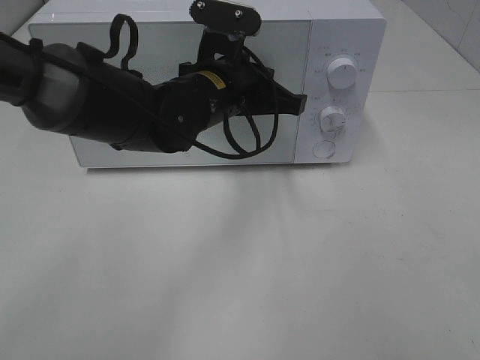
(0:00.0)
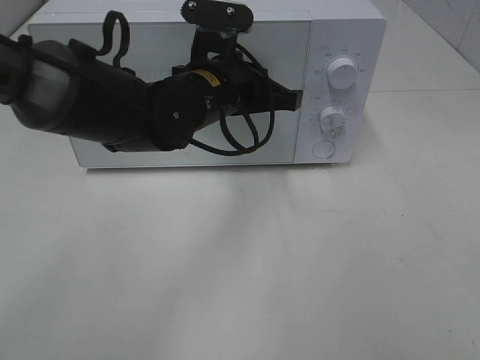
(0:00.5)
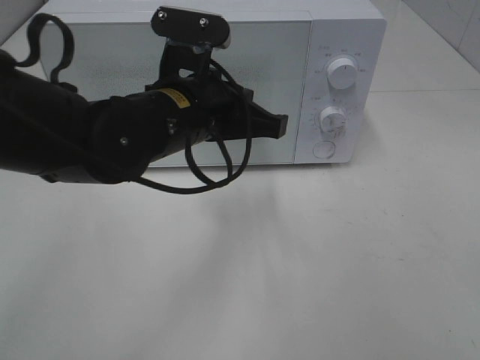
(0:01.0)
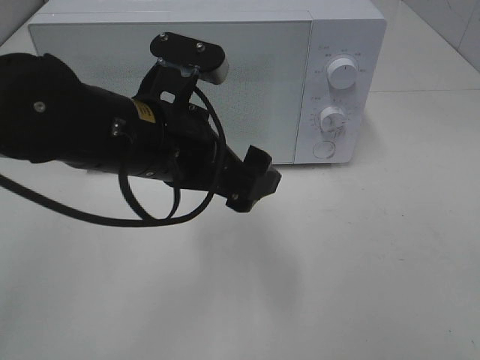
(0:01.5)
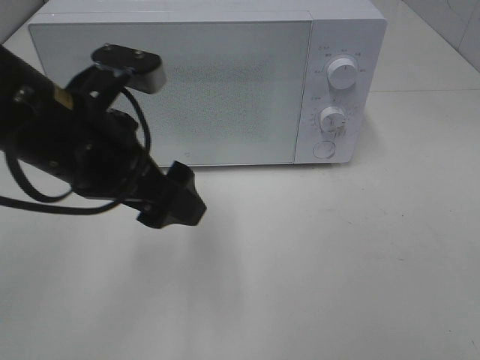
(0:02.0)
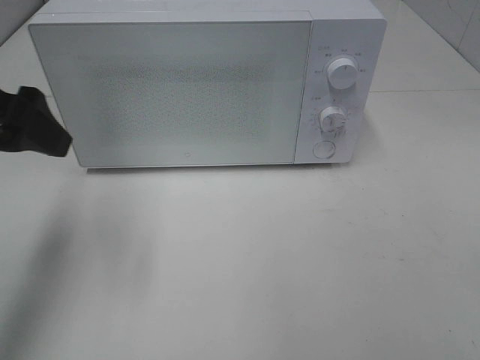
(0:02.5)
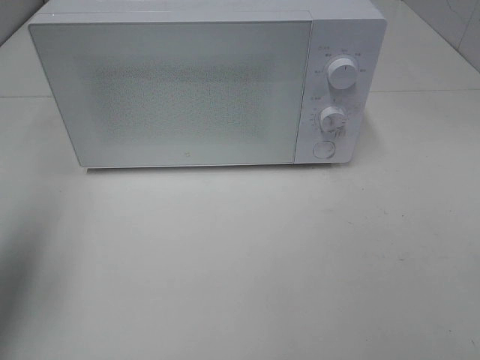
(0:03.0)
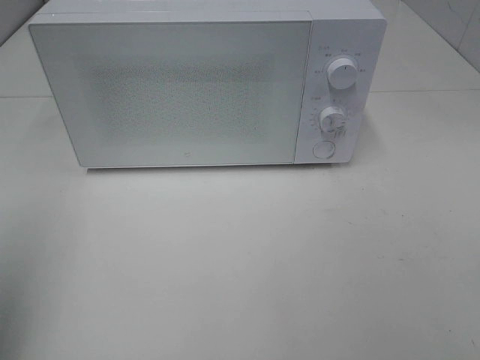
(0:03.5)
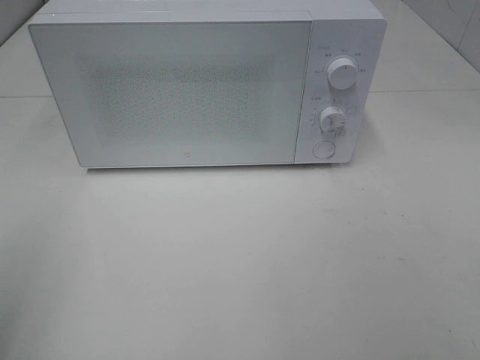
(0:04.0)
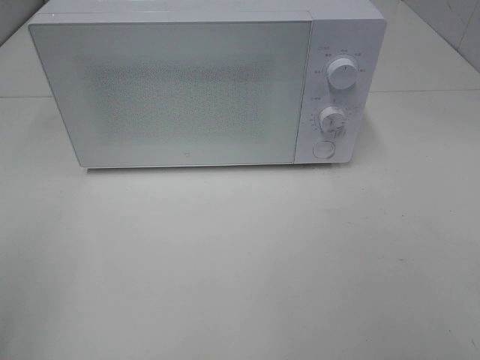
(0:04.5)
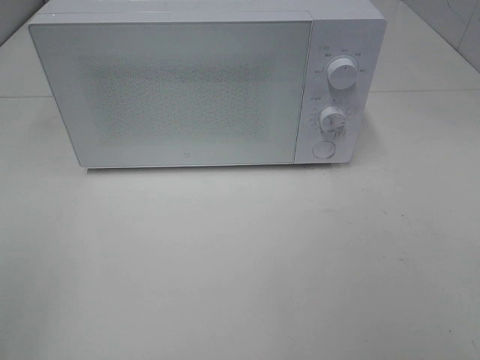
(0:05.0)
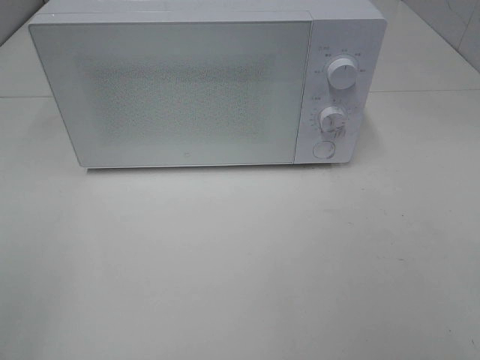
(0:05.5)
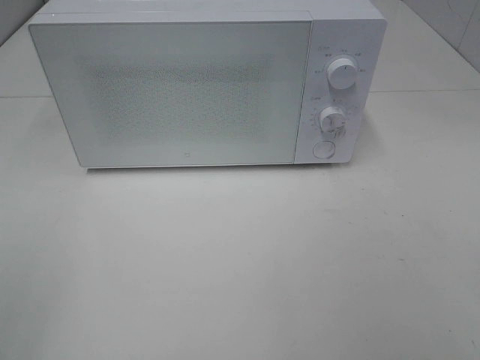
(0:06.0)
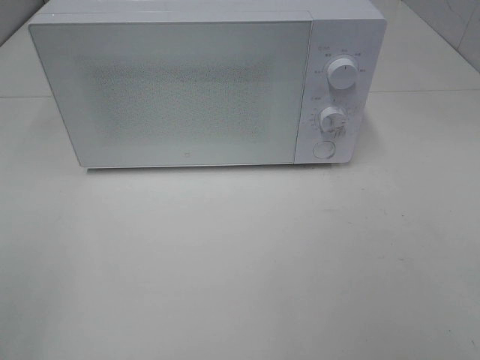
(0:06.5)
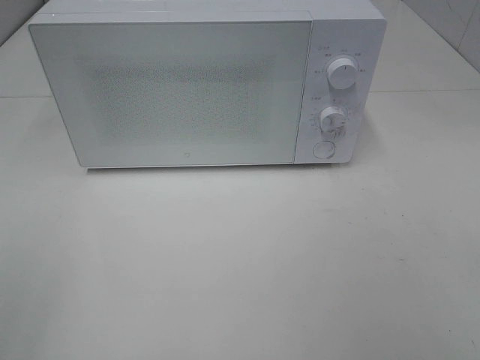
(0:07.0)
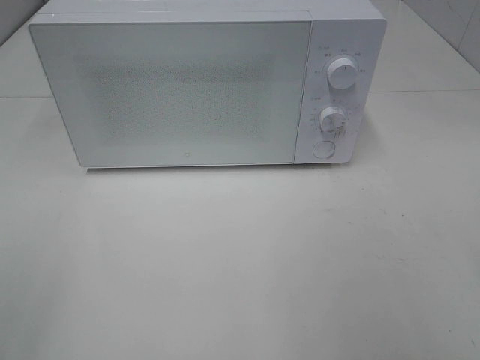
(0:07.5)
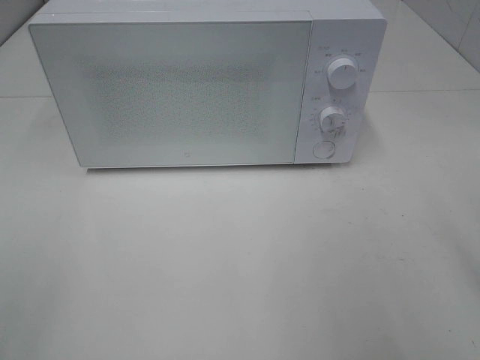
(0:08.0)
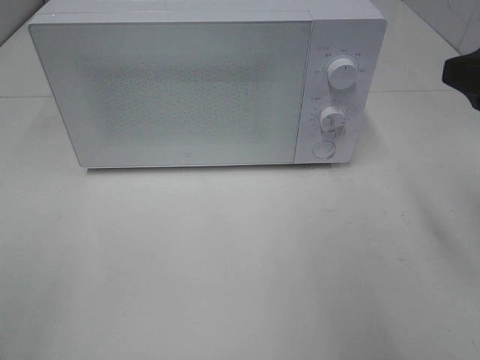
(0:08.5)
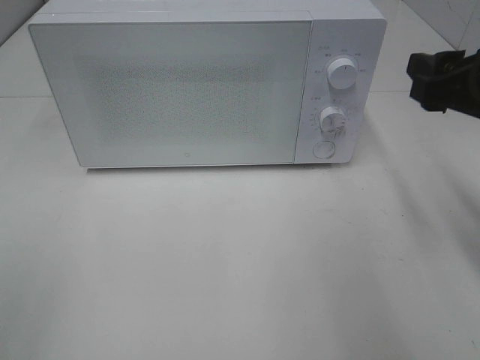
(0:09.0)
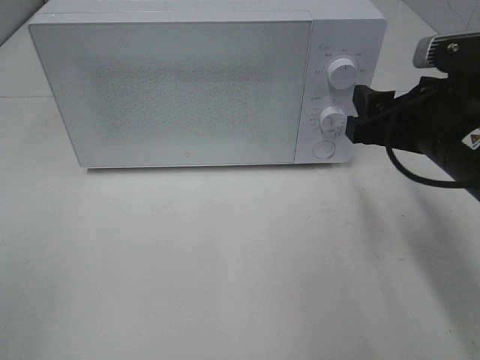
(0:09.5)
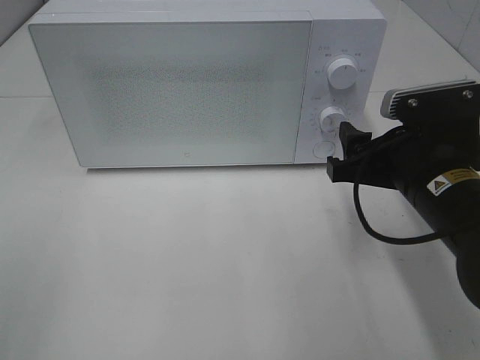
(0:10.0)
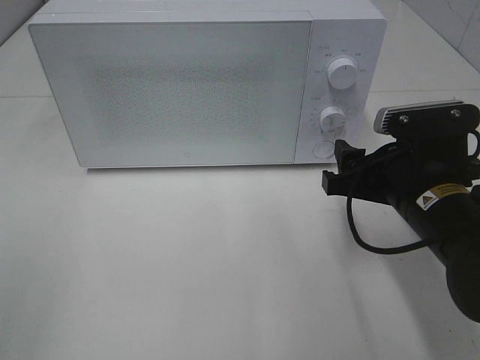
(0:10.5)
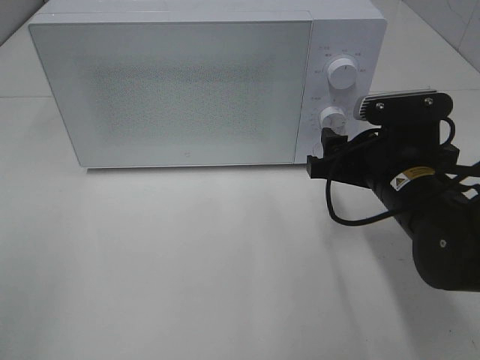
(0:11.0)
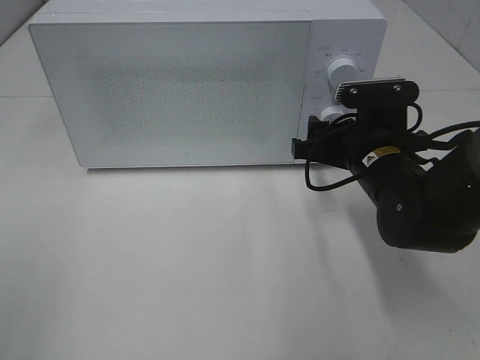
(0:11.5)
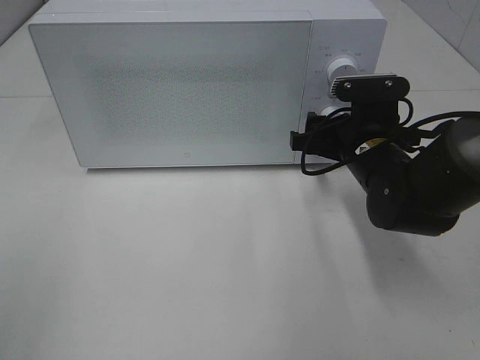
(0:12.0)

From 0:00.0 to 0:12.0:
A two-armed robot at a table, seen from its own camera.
Task of the whole recording: Heat Sandwich.
From 0:00.0 to 0:02.0: The left gripper moves backward, to the left and upward, roughly 15 cm, and opens its fingers.
From 0:02.0 to 0:04.0: The left gripper goes approximately 25 cm to the left and backward.
From 0:08.0 to 0:10.0: The right gripper goes approximately 20 cm downward, forward and to the left.
From 0:10.0 to 0:12.0: The right gripper travels forward by some 10 cm.

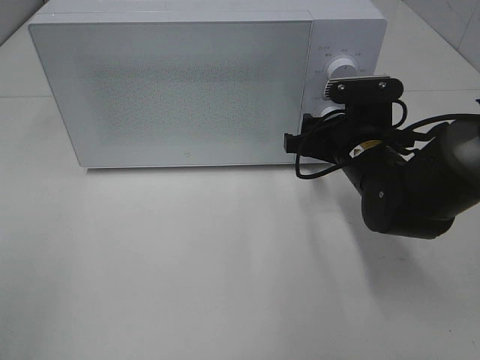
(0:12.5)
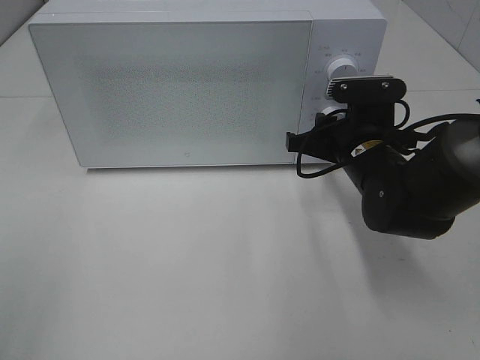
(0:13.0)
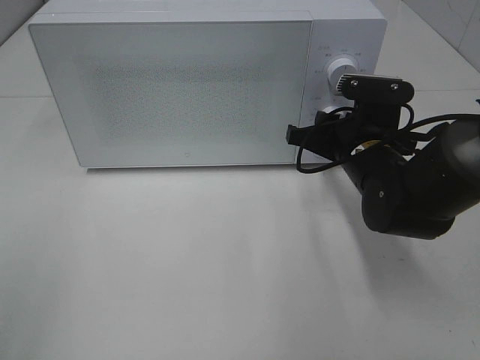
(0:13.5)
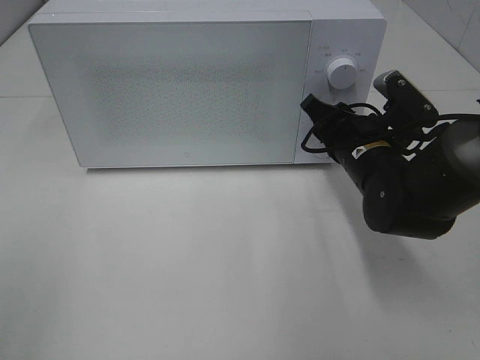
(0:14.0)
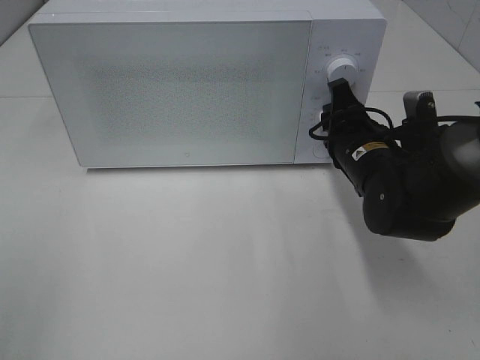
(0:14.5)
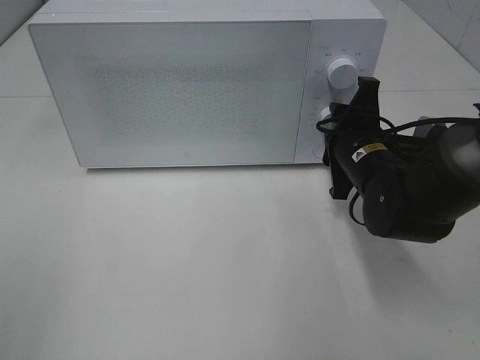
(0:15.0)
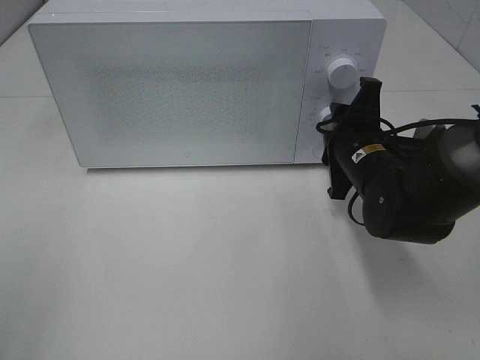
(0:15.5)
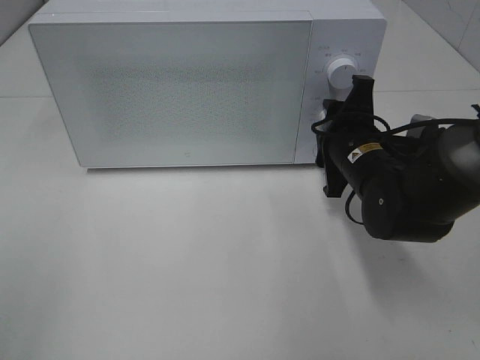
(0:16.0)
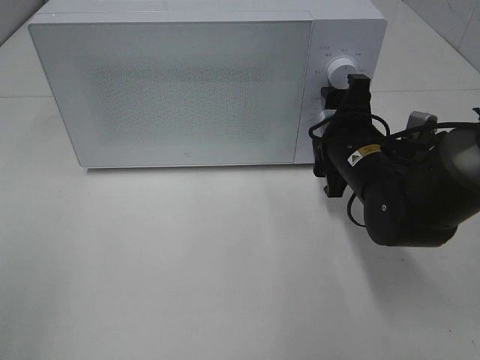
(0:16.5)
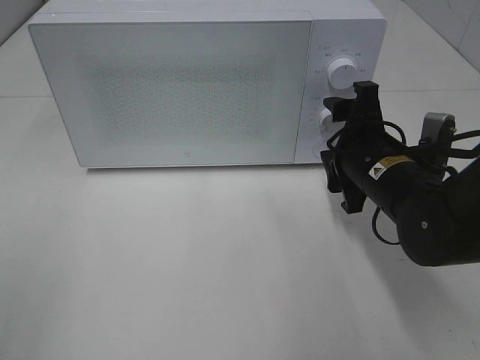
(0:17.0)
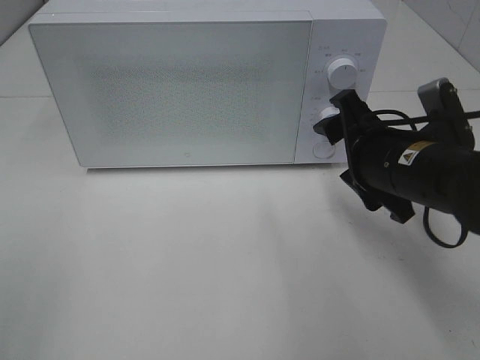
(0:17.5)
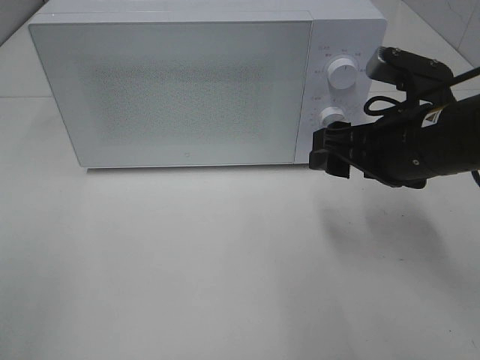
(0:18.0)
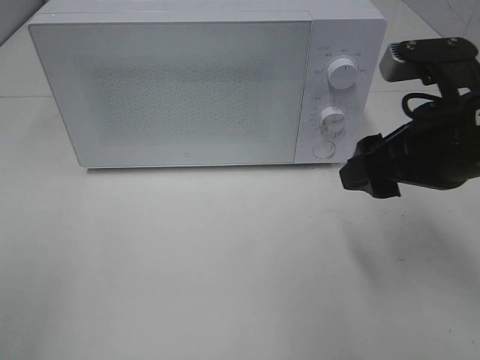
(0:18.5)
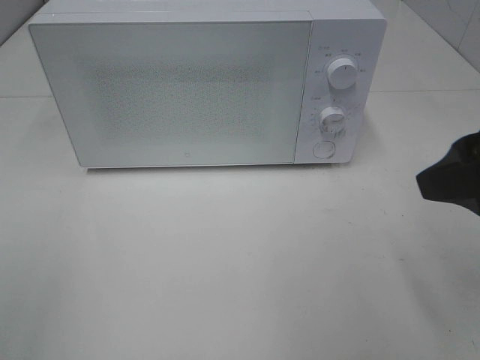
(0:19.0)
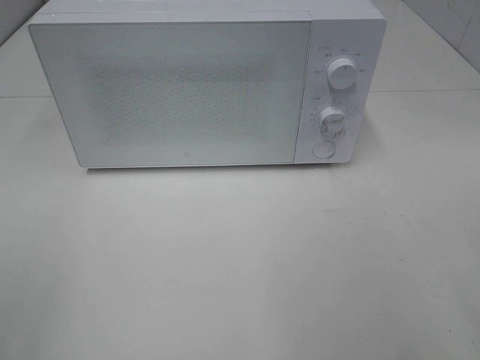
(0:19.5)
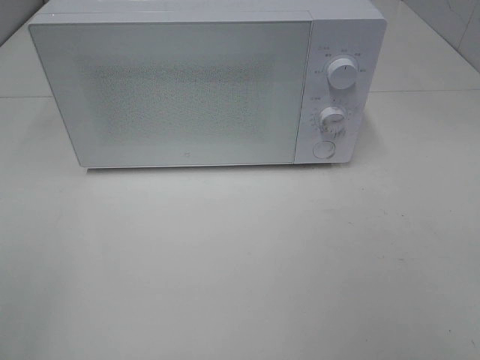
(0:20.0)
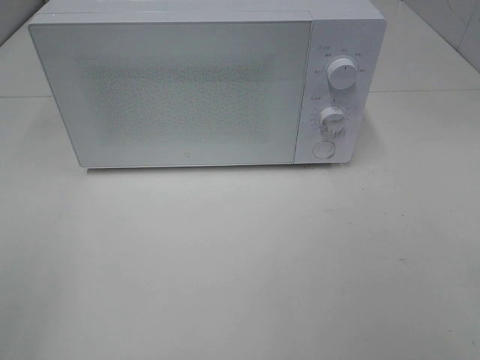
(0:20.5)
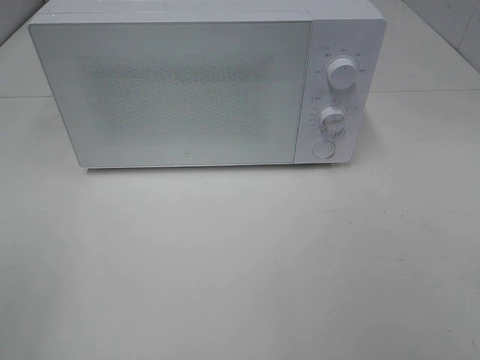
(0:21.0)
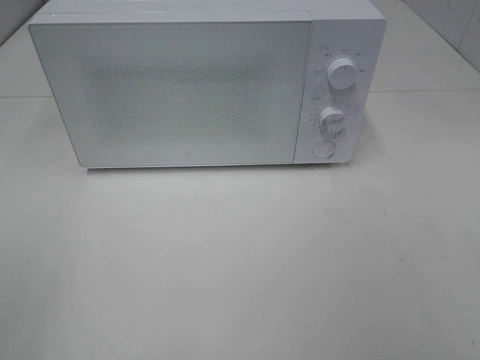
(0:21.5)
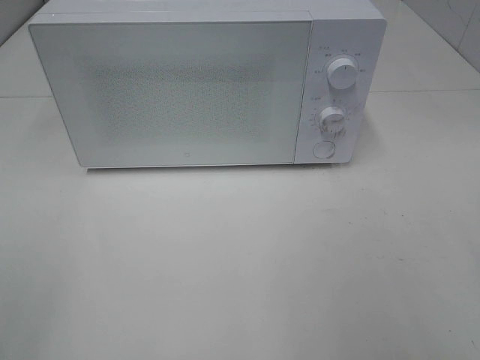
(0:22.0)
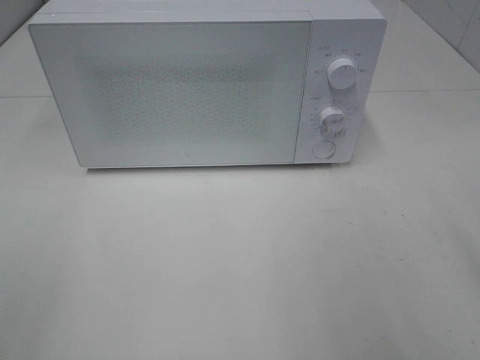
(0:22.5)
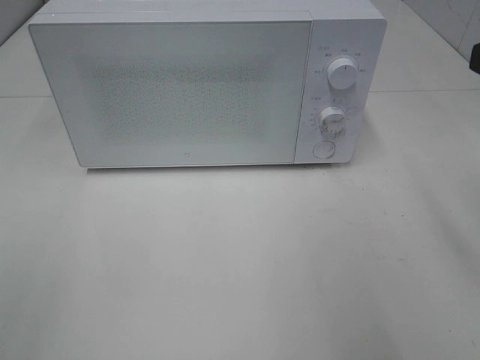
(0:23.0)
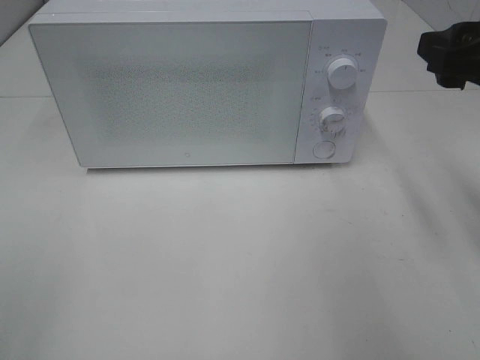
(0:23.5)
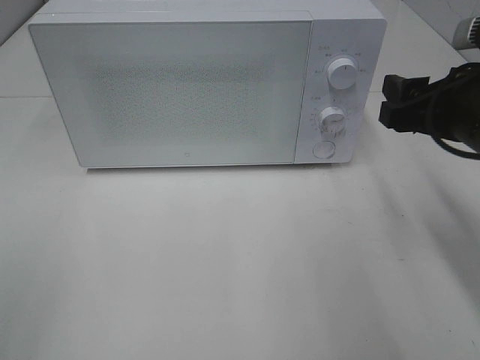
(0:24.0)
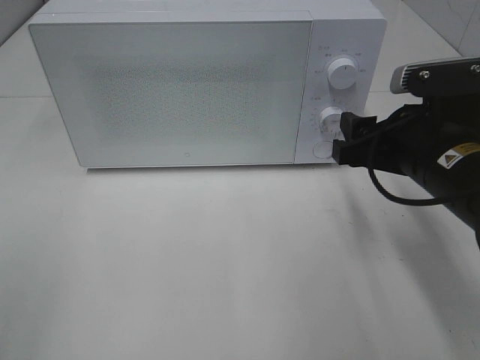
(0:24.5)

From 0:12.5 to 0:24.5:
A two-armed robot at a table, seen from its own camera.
Task of the whole recording: Heat Sandwich.
Step, from 0:12.5 to 0:16.5: Right hand: twist timer button.
From 0:14.5 to 0:16.5: The right gripper opens its fingers.
From 0:16.5 to 0:18.5: The right gripper travels upward and backward by some 15 cm.
From 0:18.5 to 0:20.5: The right gripper goes about 25 cm backward and to the right.
From 0:22.5 to 0:24.5: The right gripper heads downward, forward and to the left, covering some 20 cm.

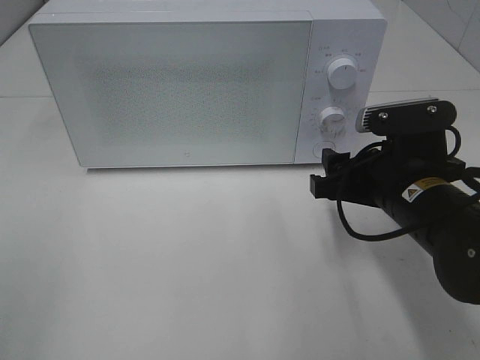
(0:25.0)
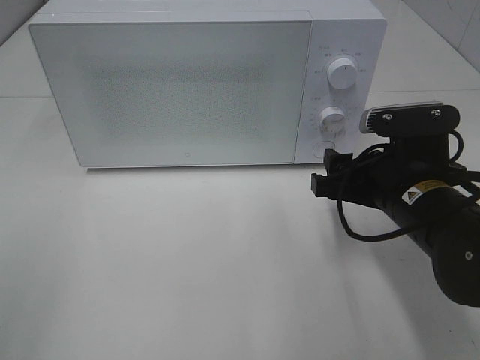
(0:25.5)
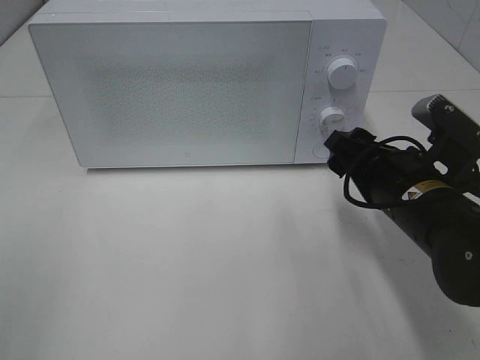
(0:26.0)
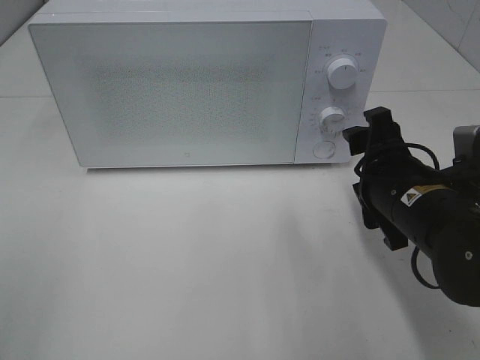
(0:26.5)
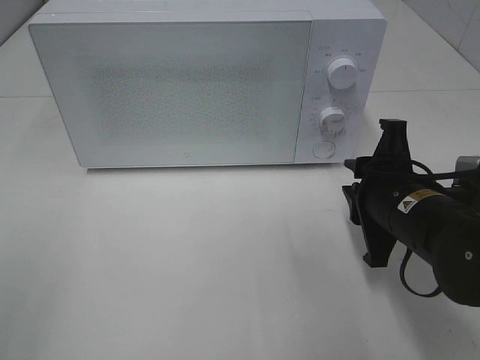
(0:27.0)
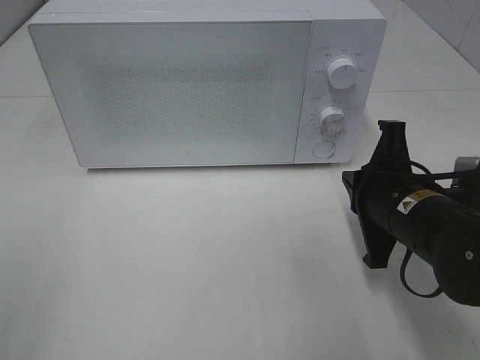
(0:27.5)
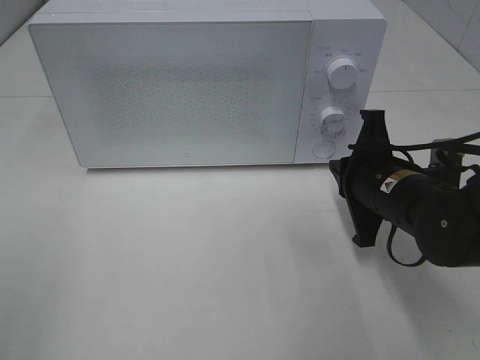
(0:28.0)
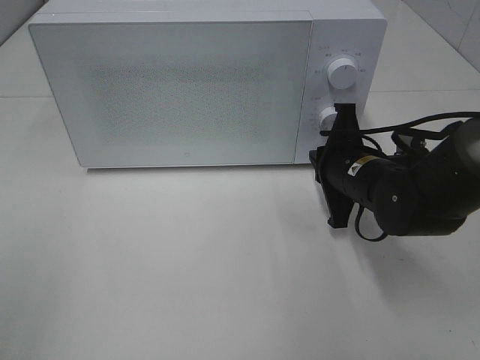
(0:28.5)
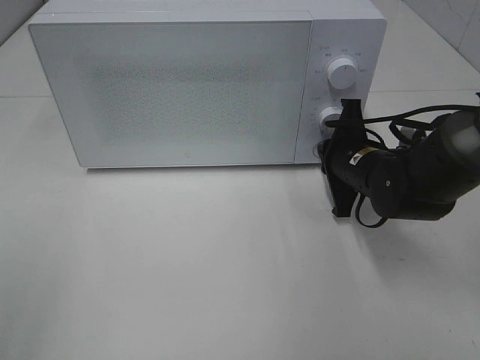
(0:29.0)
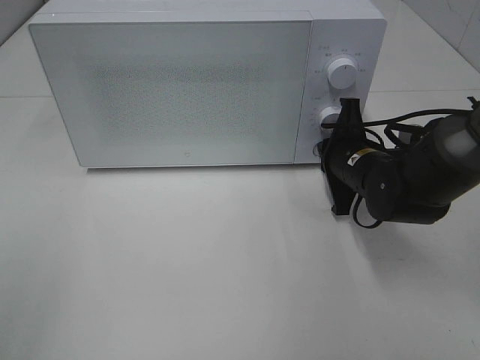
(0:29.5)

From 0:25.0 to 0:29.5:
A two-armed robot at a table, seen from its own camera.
Task of the whole recording: Heat Sandwich.
From 0:25.0 to 0:27.0: The right gripper closes up.
From 0:27.0 to 0:29.5: The right gripper moves forward, roughly 10 cm.
